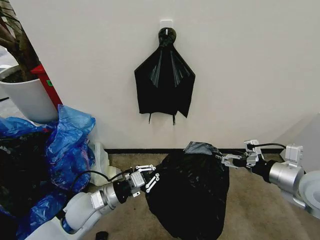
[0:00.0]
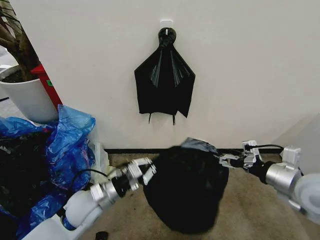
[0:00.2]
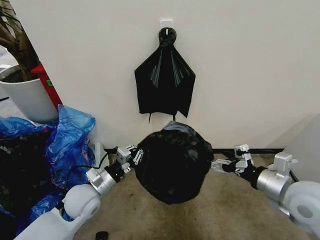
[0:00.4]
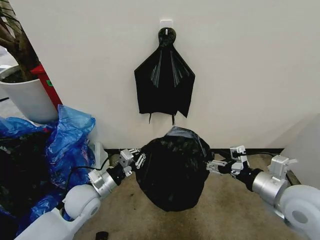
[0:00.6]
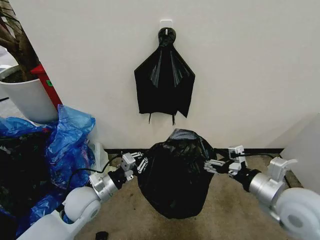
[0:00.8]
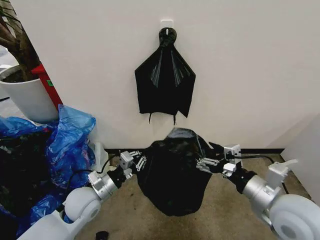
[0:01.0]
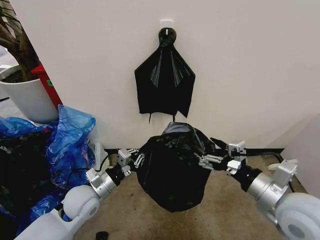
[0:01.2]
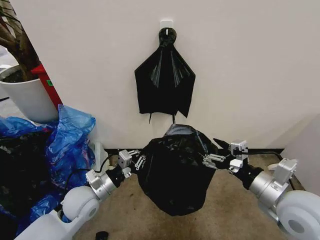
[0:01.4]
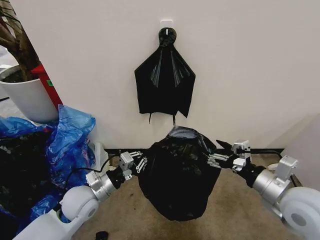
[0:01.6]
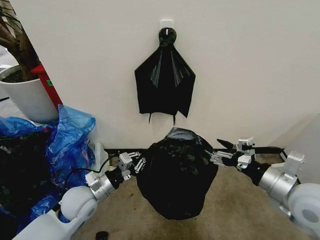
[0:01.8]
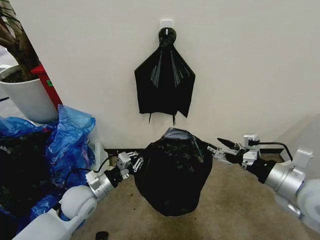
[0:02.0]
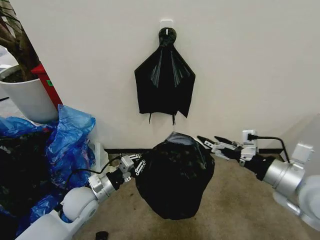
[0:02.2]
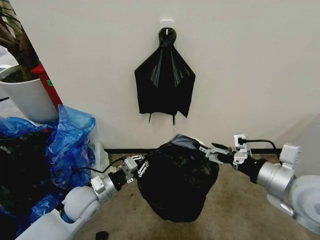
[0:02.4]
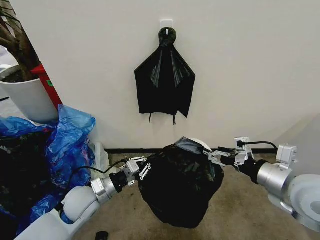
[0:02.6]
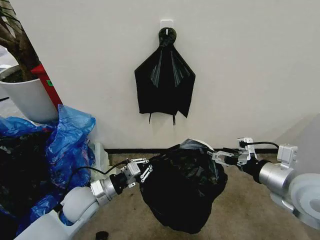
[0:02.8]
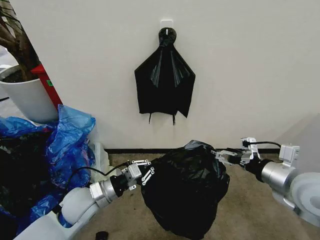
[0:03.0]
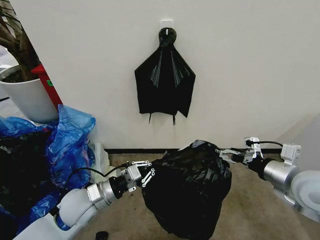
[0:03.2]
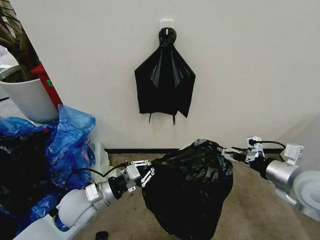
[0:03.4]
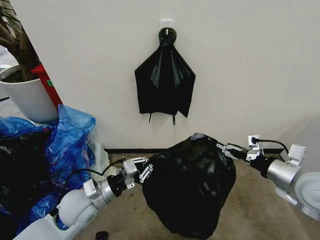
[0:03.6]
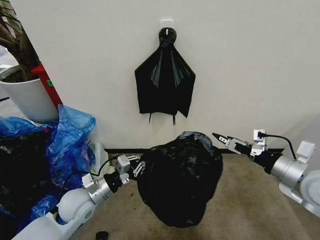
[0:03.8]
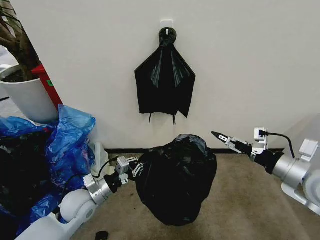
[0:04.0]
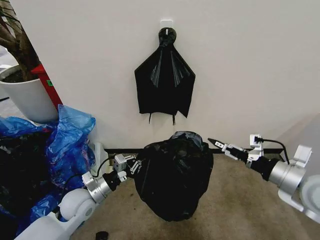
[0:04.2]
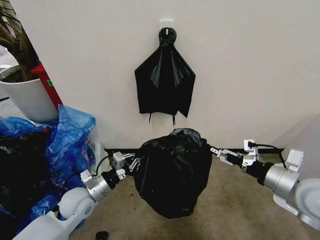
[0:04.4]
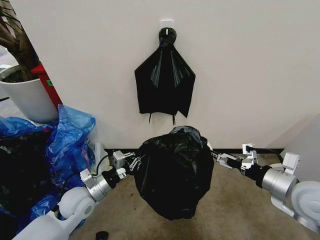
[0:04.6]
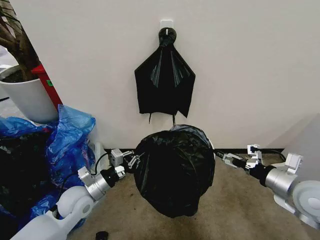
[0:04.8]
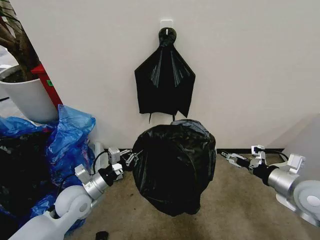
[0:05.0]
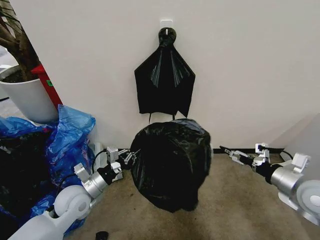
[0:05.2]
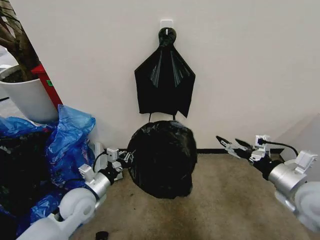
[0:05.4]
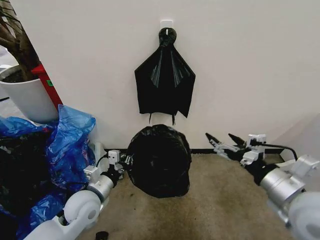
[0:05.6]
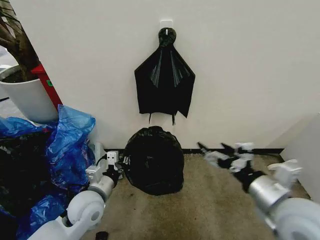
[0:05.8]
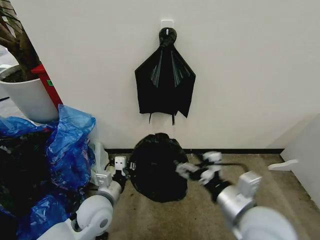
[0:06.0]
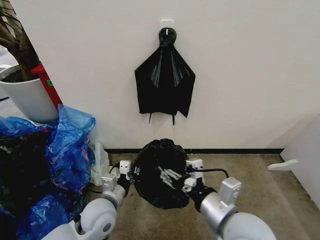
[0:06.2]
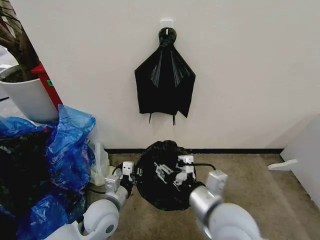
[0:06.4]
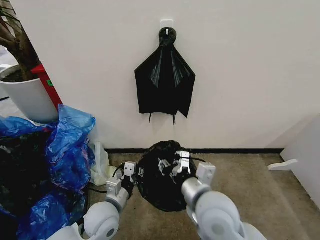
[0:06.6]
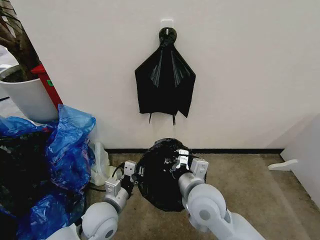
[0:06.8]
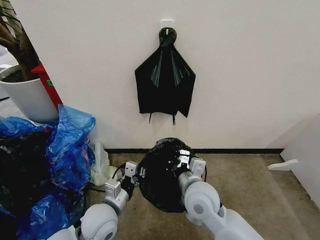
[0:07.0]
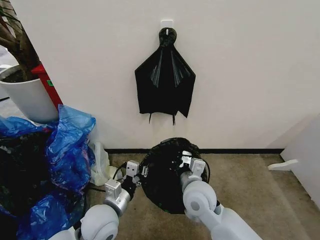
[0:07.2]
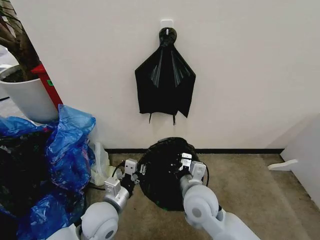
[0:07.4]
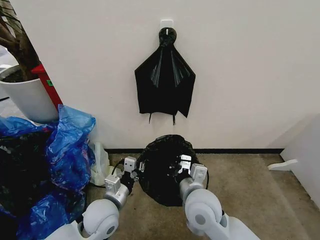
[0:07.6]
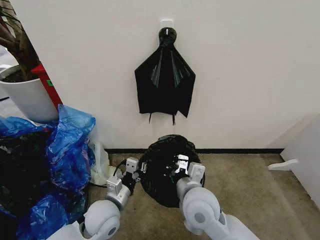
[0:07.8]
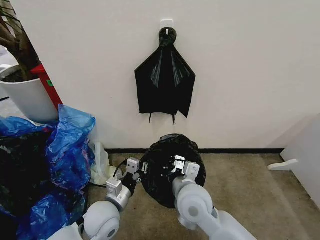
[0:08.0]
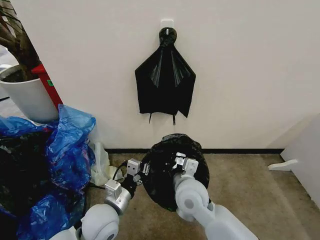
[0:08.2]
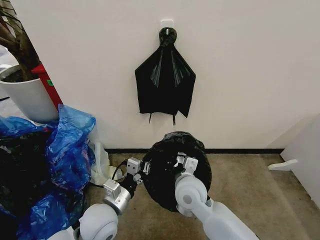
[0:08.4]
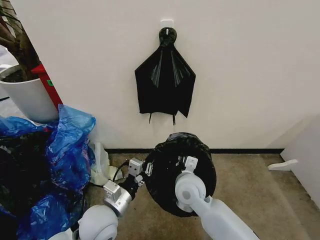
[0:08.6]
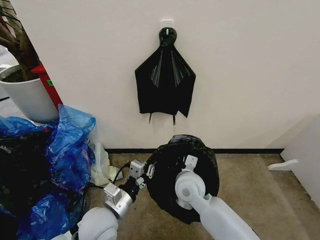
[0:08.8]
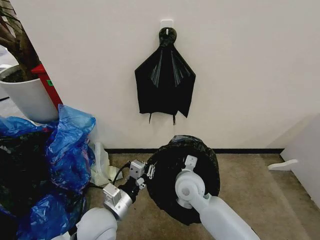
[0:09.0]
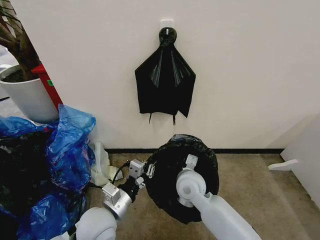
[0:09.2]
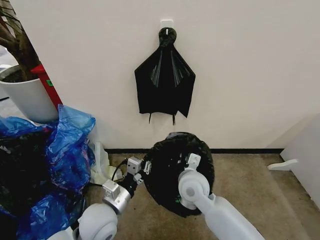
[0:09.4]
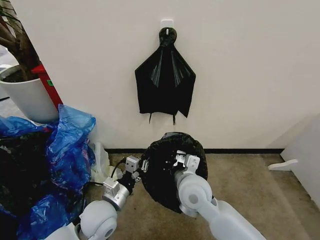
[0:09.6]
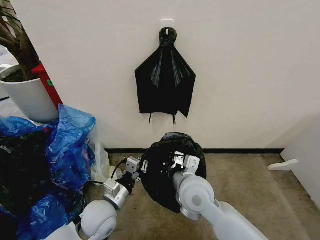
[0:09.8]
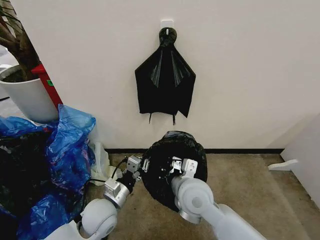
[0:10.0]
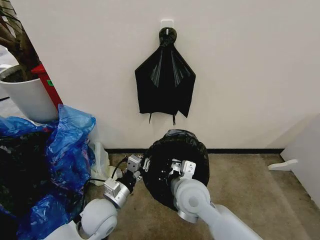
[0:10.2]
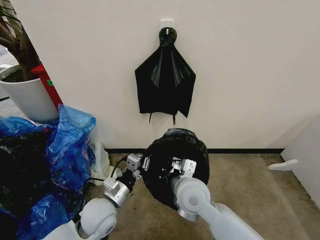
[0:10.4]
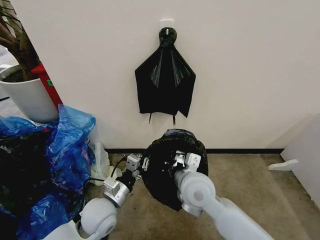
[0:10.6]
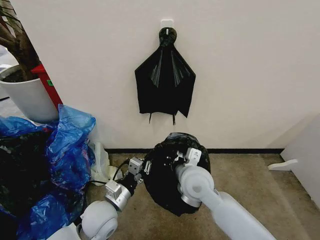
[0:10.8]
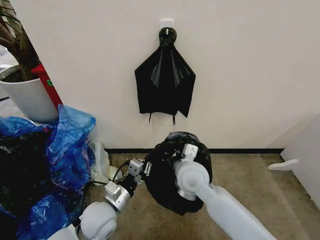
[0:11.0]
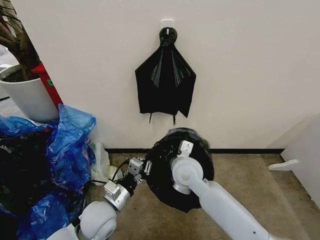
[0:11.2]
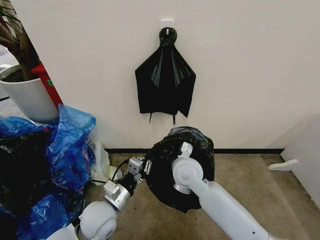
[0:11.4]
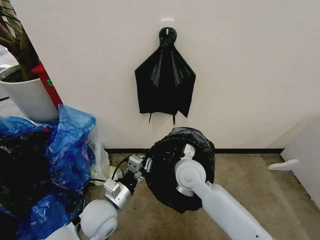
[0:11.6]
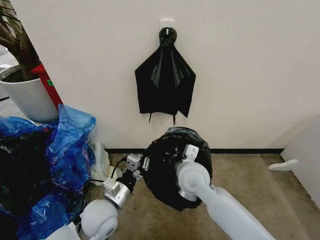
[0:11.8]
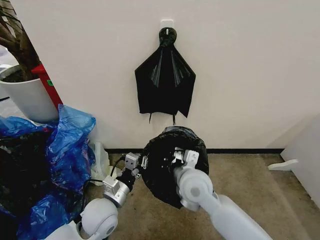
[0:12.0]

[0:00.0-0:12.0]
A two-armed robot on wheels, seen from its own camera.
Task of the whole recording: Place the garbage bag over the trash bin.
0:00.0 to 0:01.6: The right gripper heads to the left, covering about 5 cm.
0:04.4 to 0:06.0: The right gripper travels to the left by about 5 cm.
0:06.0 to 0:07.6: The right gripper moves to the left and downward, roughly 25 cm, and closes its fingers, while the left gripper goes some 5 cm to the right.
0:07.6 to 0:09.0: The right gripper is displaced forward by roughly 5 cm.
0:09.0 to 0:10.4: The right gripper changes place by some 5 cm.

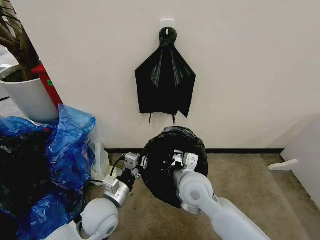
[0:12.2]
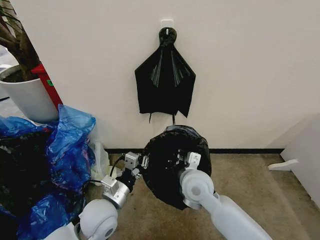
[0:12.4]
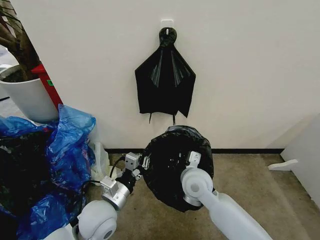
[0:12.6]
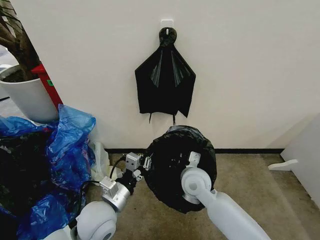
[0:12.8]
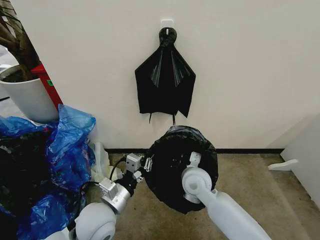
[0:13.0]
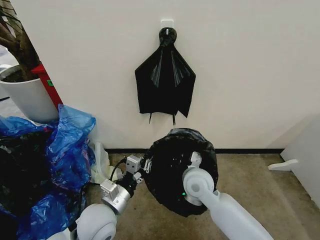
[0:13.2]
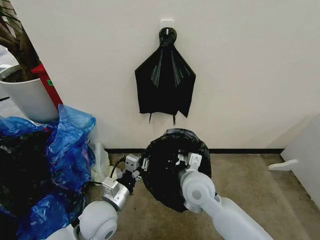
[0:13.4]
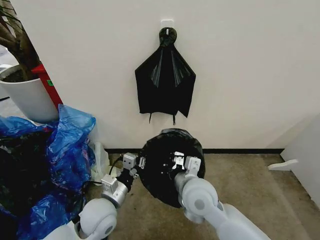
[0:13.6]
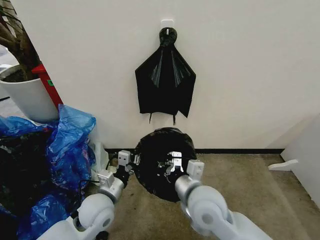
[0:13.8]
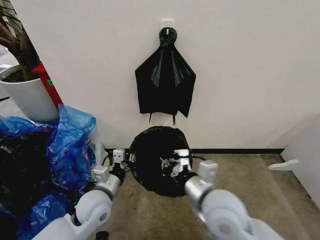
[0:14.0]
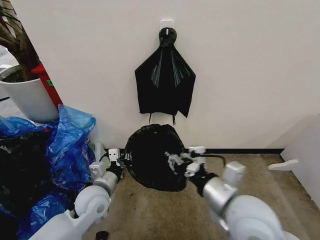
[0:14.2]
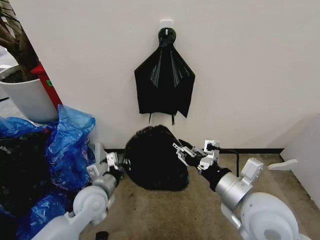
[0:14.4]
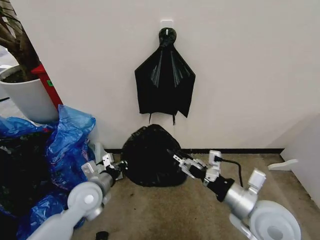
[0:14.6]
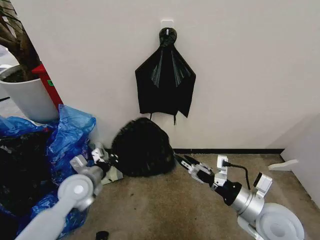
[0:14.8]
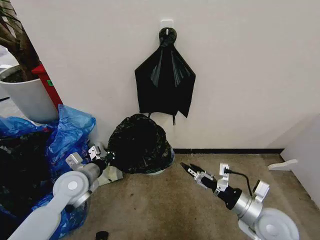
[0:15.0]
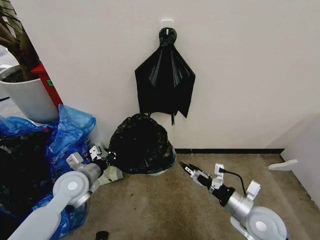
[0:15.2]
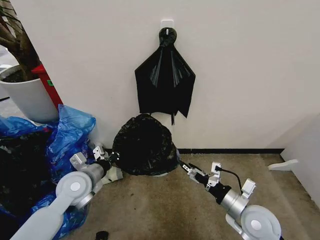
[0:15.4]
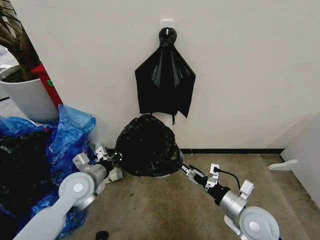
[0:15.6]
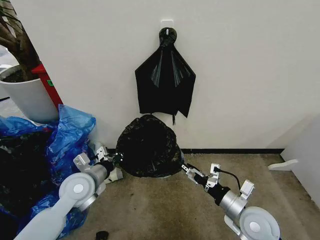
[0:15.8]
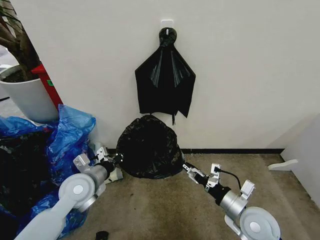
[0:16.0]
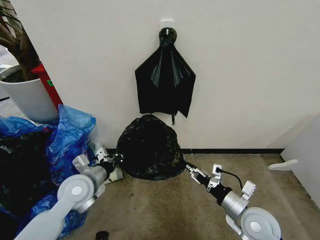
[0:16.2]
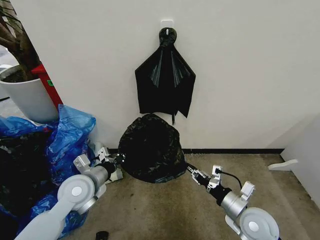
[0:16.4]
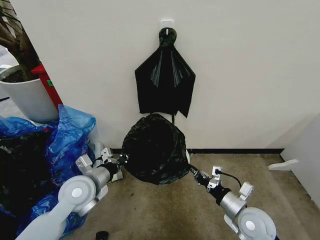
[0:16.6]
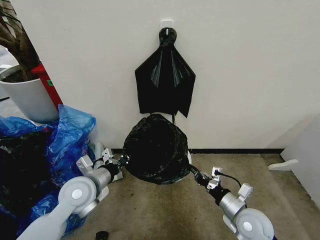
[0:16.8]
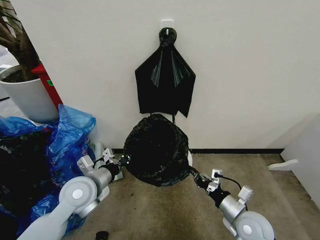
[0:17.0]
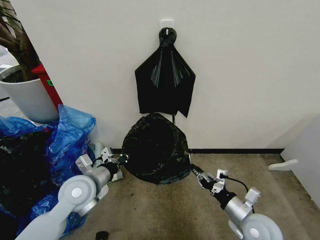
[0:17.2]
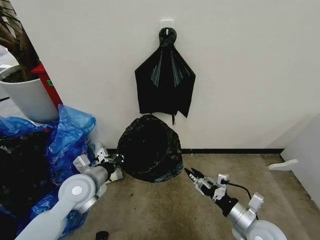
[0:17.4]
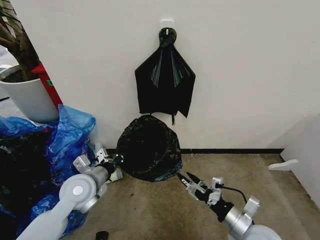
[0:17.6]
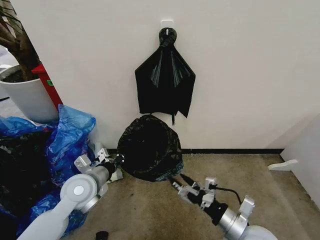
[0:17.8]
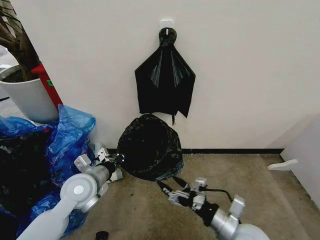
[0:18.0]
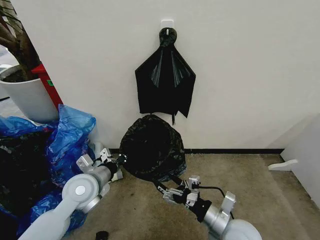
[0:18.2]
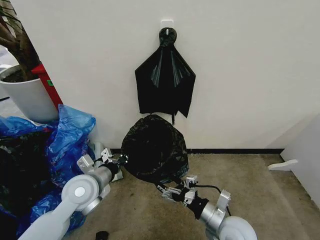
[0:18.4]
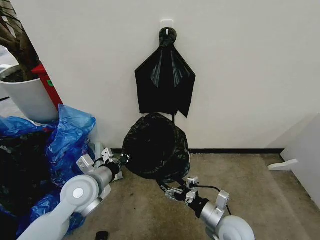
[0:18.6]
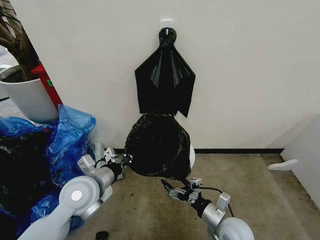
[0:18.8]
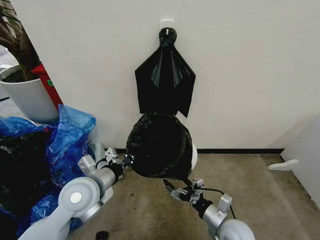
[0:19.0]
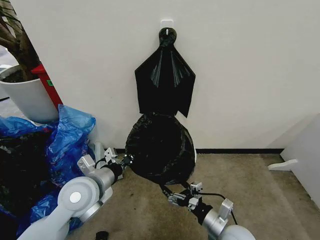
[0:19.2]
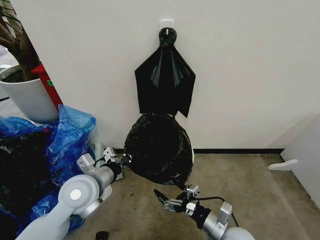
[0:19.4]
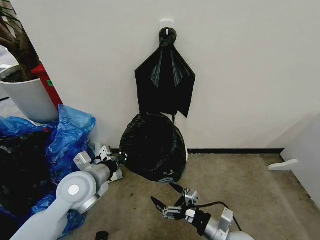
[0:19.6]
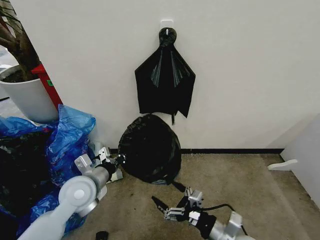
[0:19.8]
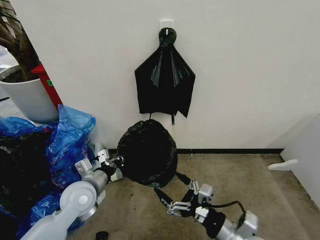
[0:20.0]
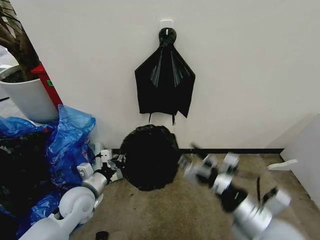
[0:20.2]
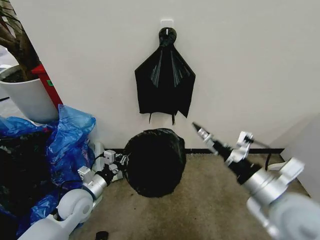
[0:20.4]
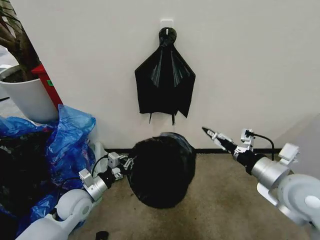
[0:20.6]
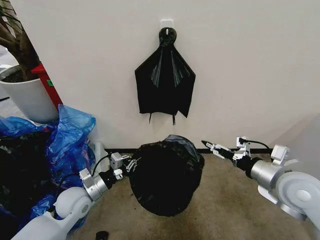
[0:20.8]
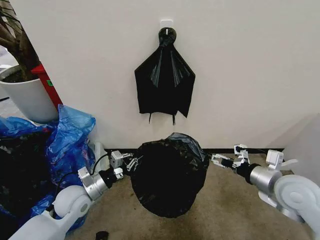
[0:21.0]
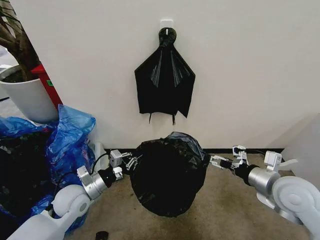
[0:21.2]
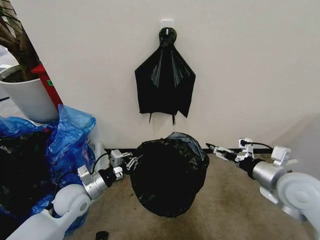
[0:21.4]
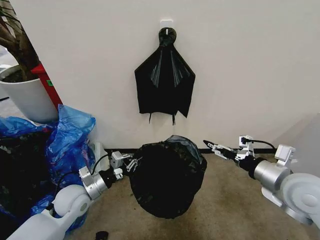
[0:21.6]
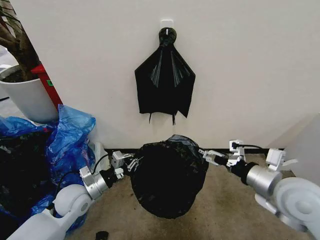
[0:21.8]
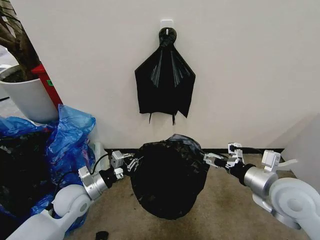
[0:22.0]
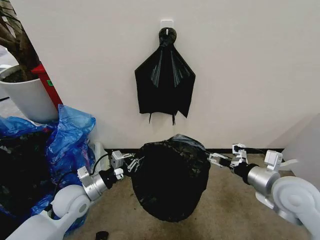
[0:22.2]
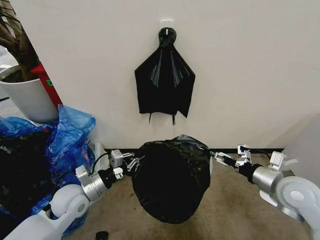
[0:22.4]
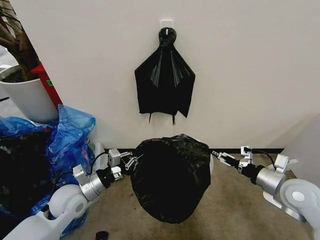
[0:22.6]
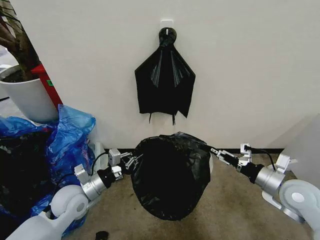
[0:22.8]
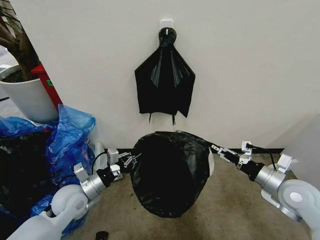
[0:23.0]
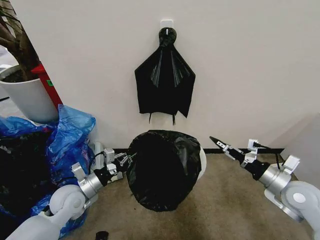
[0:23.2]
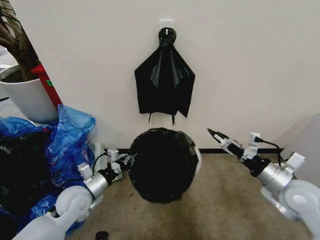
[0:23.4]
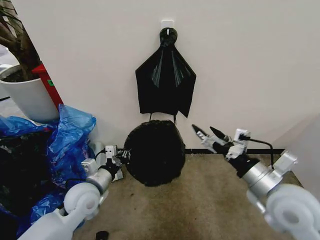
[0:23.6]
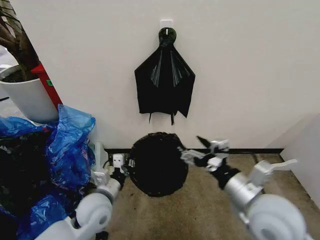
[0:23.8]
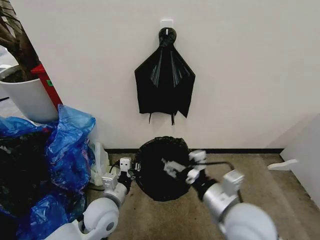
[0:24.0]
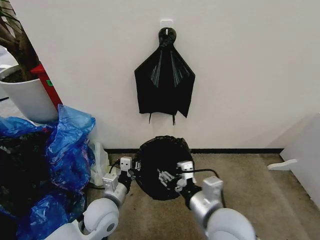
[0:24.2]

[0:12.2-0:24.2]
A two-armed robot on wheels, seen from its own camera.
Task of the whole recording: Place the garbage bag over the trash bin.
0:12.2 to 0:13.8: The right gripper shifts roughly 5 cm backward.
0:13.8 to 0:15.2: The left gripper heads to the left and forward, covering approximately 10 cm. Meanwhile the right gripper moves to the right and downward, about 20 cm, and opens.
0:15.2 to 0:16.6: The right gripper closes up.
0:16.6 to 0:18.2: The right gripper moves to the left, roughly 5 cm, and opens its fingers.
0:19.8 to 0:21.2: The left gripper shifts approximately 5 cm downward, while the right gripper travels upward, to the right and forward by some 20 cm.
0:21.2 to 0:22.6: The right gripper shifts by approximately 5 cm.
0:22.6 to 0:24.2: The right gripper goes some 25 cm to the left, and closes. Meanwhile the left gripper is displaced to the right by about 10 cm.
